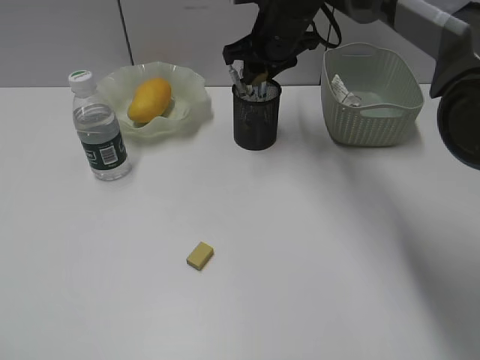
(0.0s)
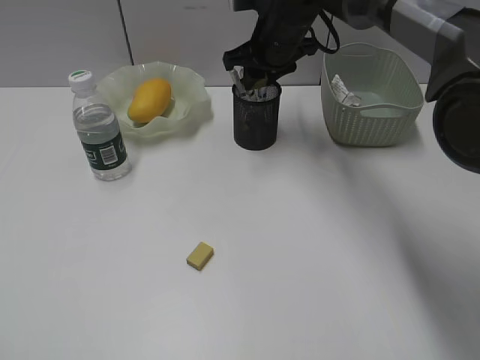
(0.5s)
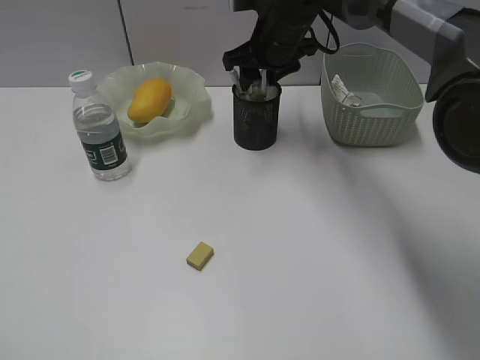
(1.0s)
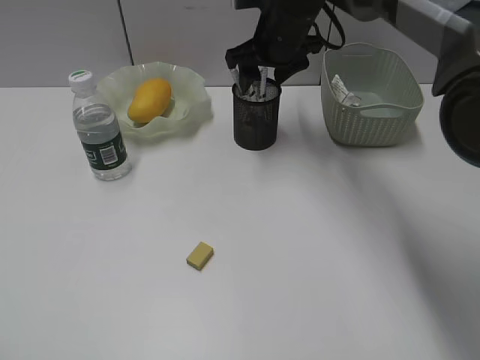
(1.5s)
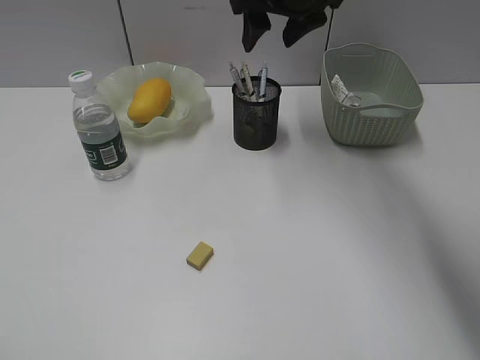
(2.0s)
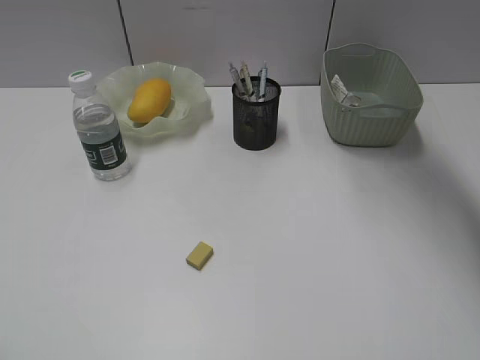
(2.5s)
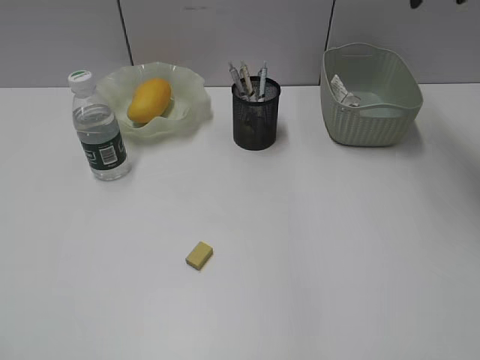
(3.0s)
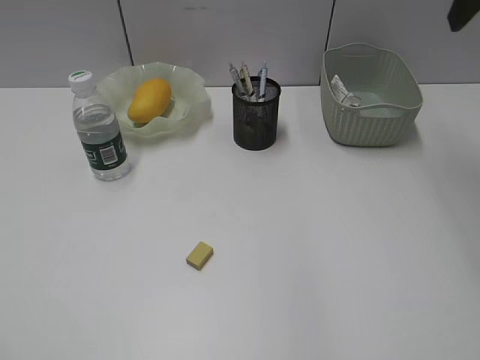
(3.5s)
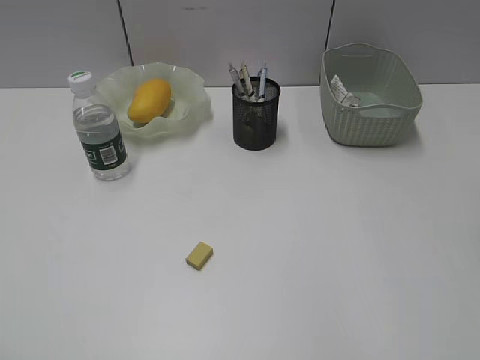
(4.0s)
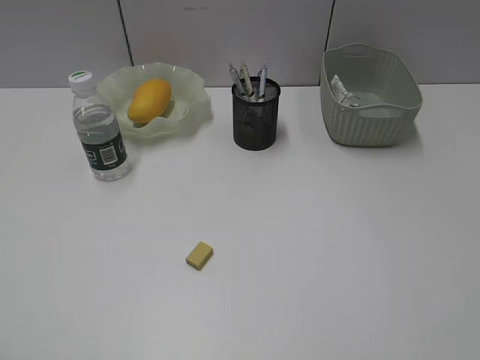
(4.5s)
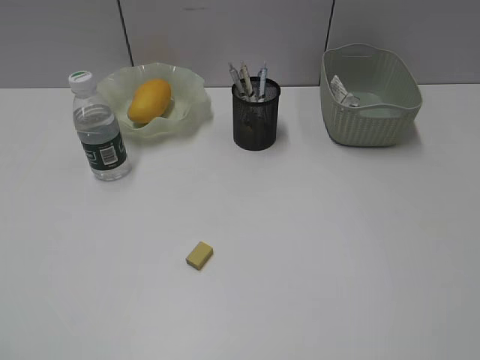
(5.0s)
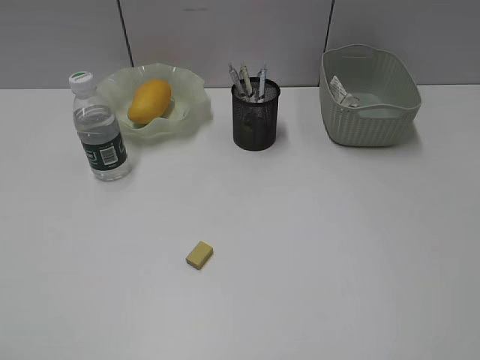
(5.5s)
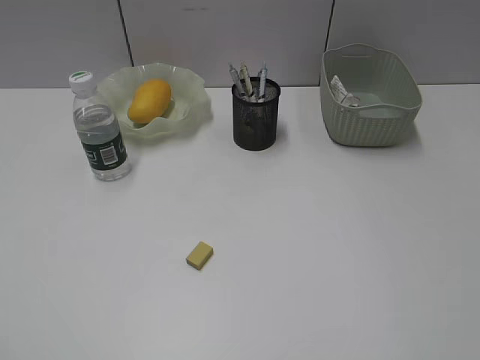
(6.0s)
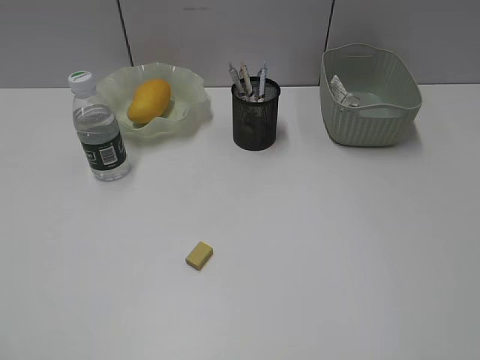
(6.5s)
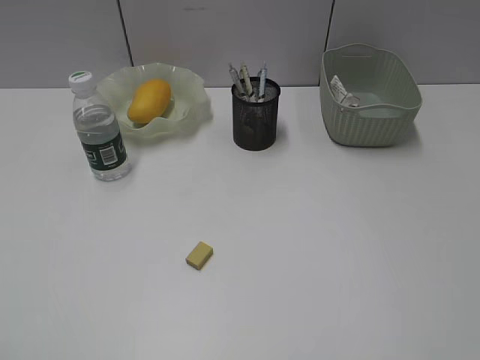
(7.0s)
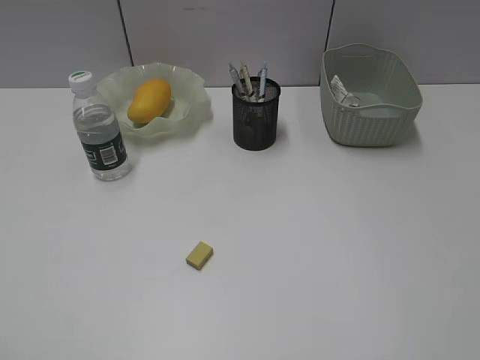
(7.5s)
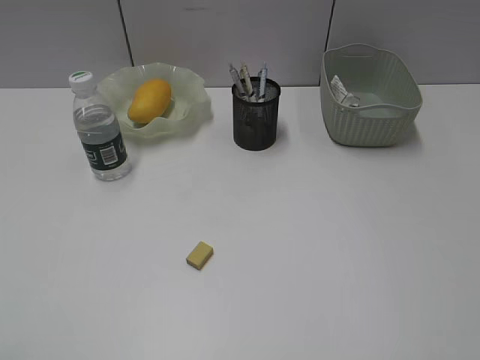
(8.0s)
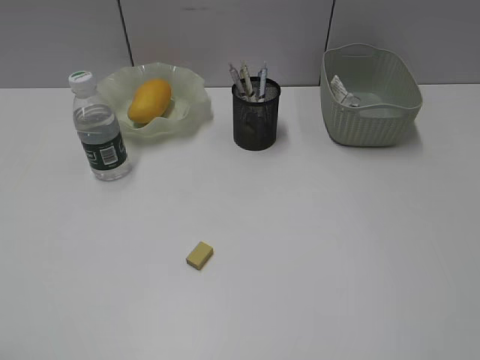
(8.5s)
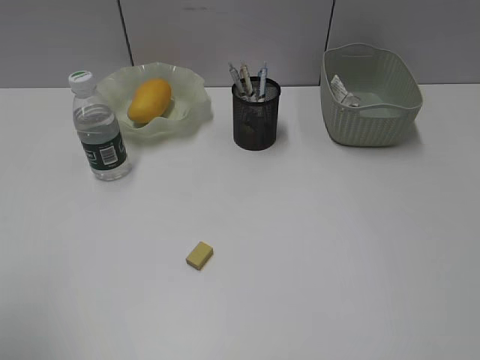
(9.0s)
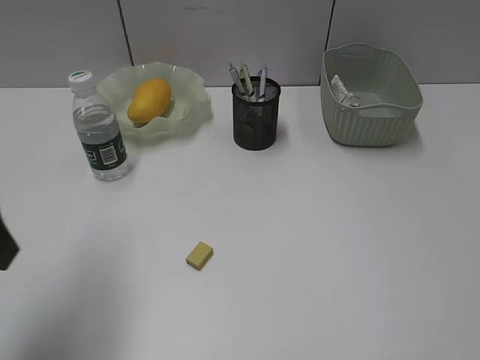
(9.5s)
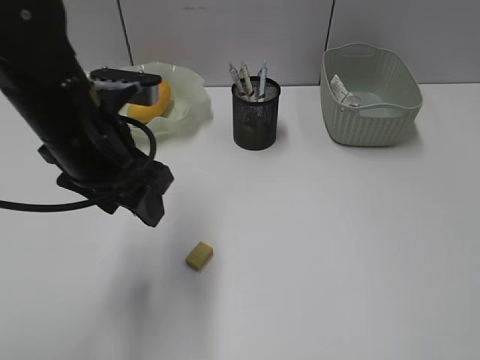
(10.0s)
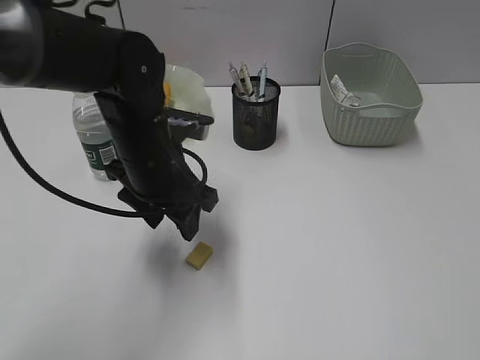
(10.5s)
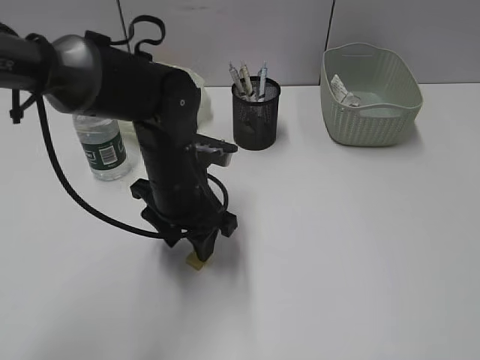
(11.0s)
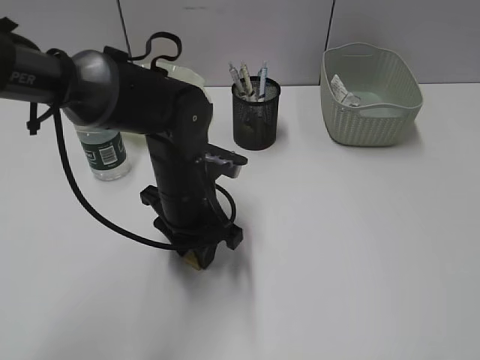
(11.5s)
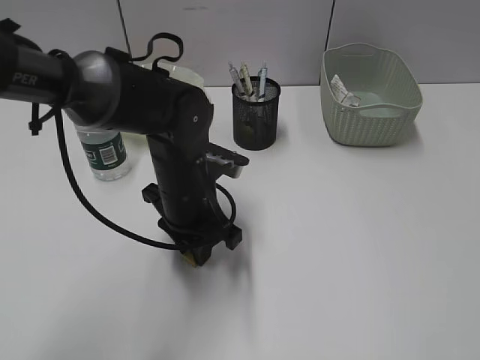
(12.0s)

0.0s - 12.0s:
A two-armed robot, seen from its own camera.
0.0s - 2.0s: The right gripper travels upward by about 10 cm, and opens.
2.0s - 4.0s: The right gripper travels backward and to the right by some 30 cm.
8.0s - 10.0s: The left gripper goes about 30 cm forward and to the right.
10.0s - 12.0s: The left gripper is displaced downward and to the right by some 15 cm, and closes.

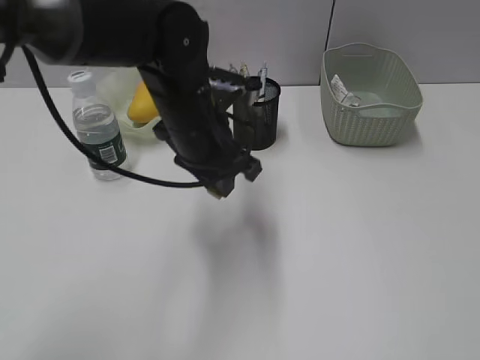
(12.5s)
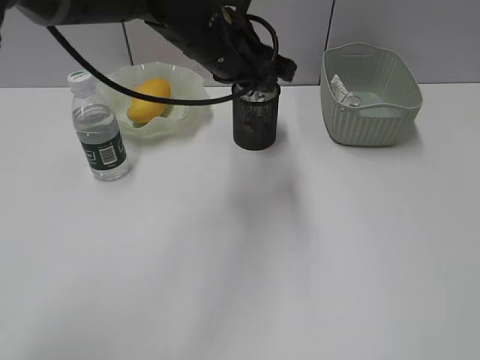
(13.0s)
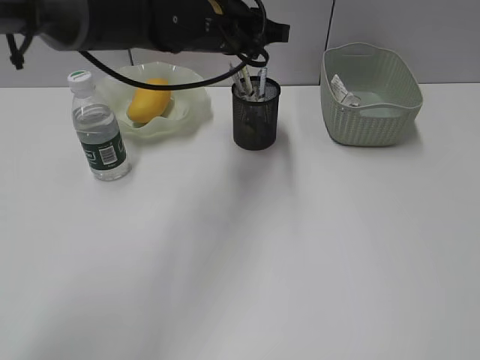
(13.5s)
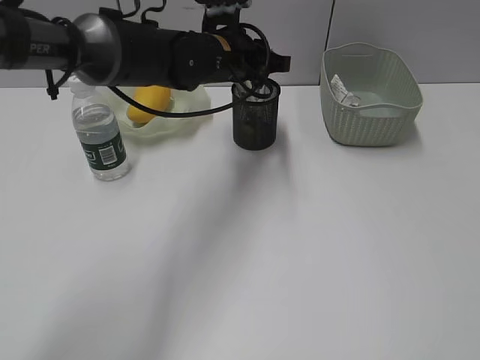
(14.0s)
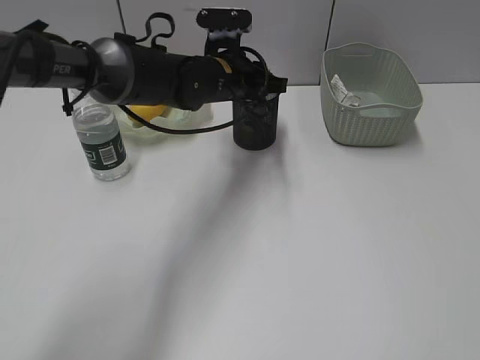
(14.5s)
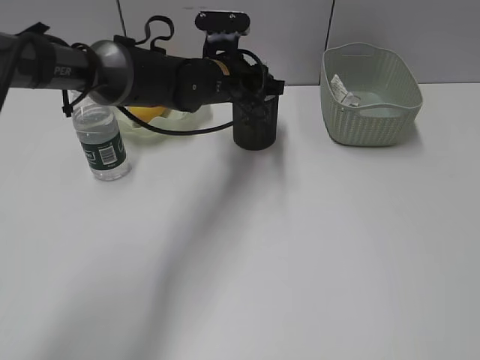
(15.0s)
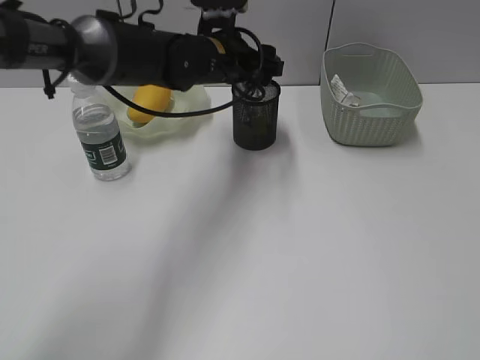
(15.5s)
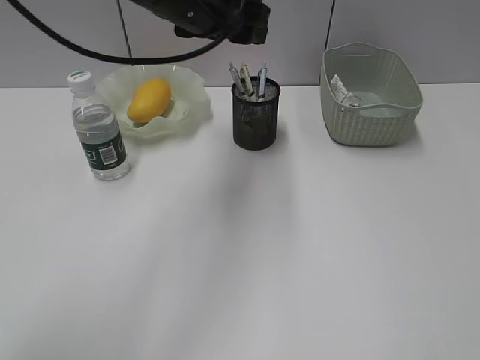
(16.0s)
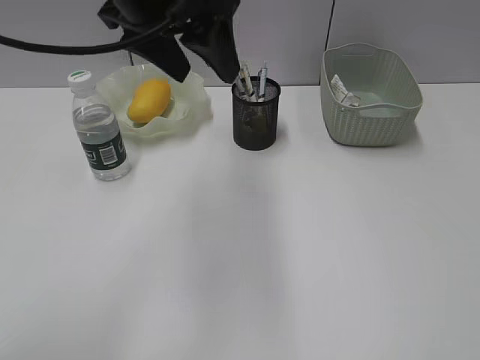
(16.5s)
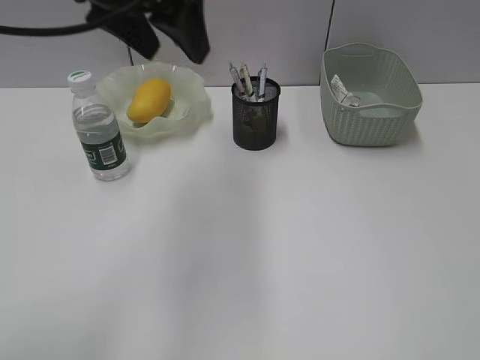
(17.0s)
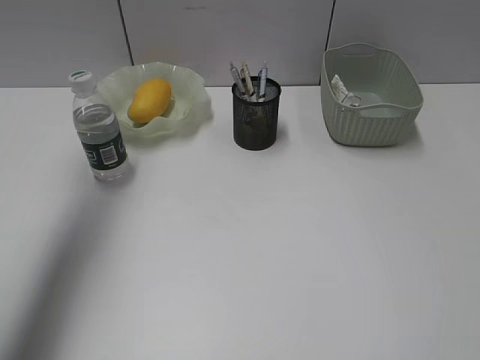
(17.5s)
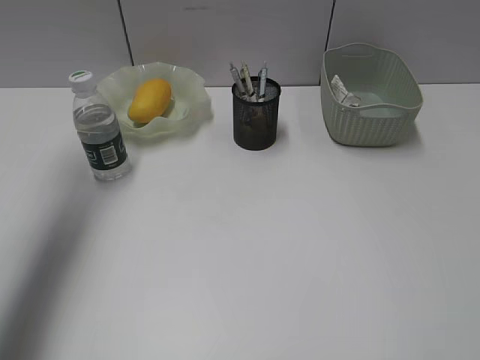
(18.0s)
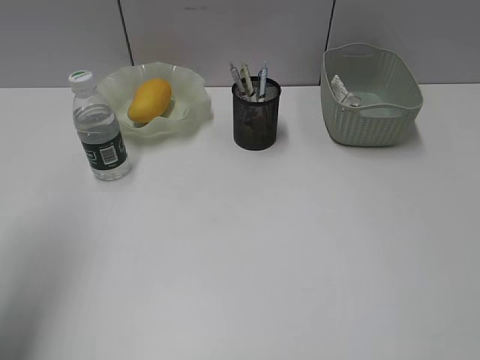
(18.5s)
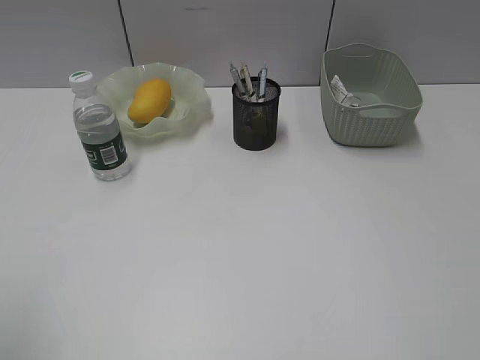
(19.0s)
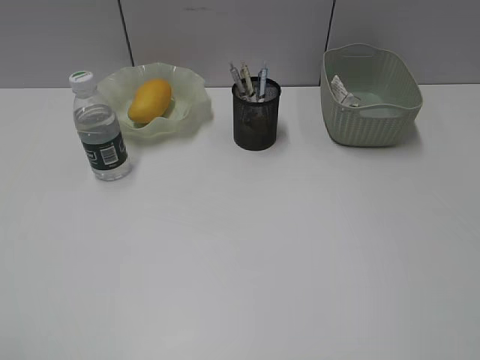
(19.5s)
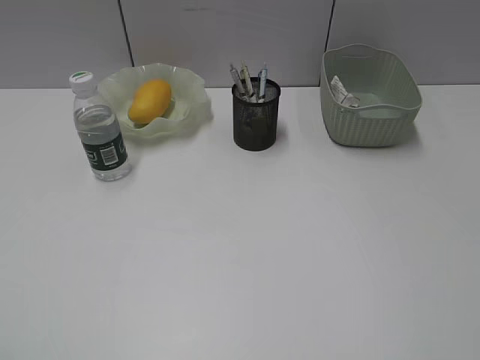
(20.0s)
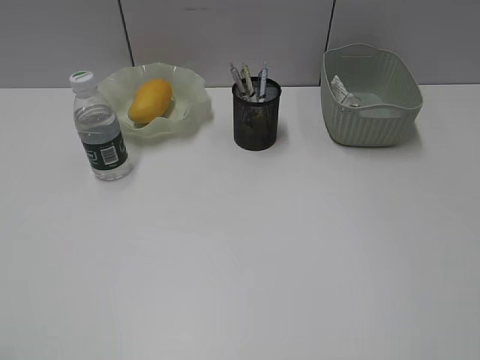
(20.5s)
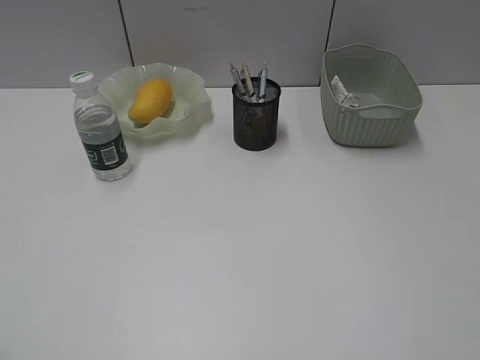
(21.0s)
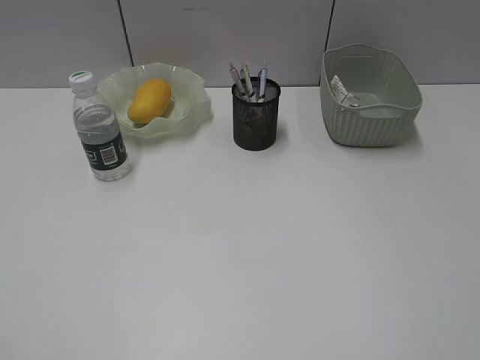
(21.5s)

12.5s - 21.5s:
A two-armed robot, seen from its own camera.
Step, 12.5s - 15.0s: Place the eraser in pen holder with left gripper.
12.5s - 14.5s: The left gripper moves forward, about 10 cm.
14.5s - 17.0s: The left gripper goes about 25 cm upward, backward and to the left, and opens up.
17.0s - 19.5s: The left gripper shifts approximately 35 cm backward and to the left.

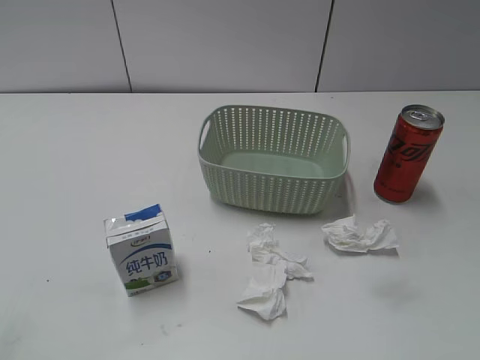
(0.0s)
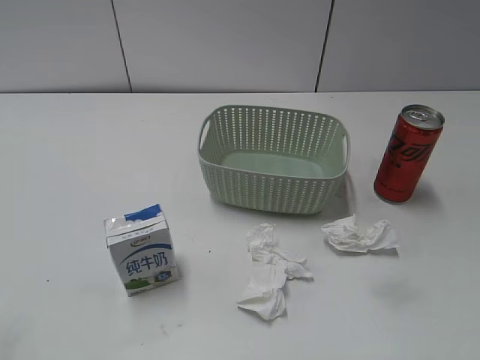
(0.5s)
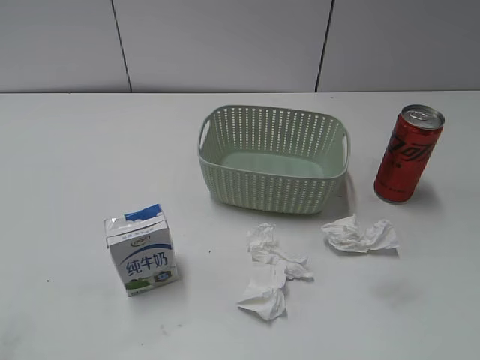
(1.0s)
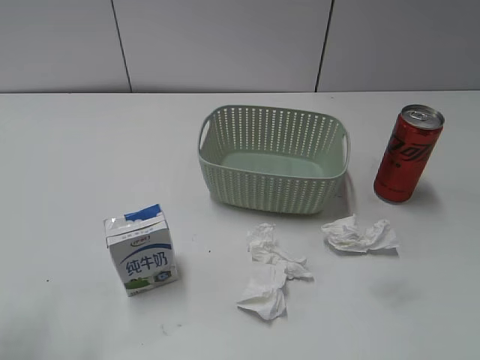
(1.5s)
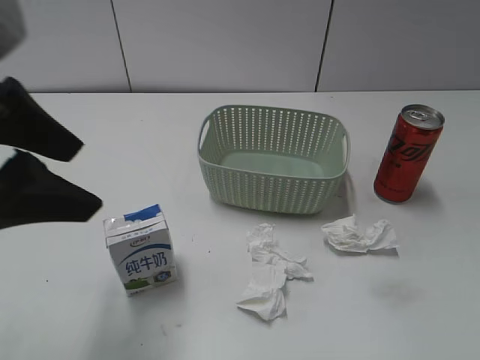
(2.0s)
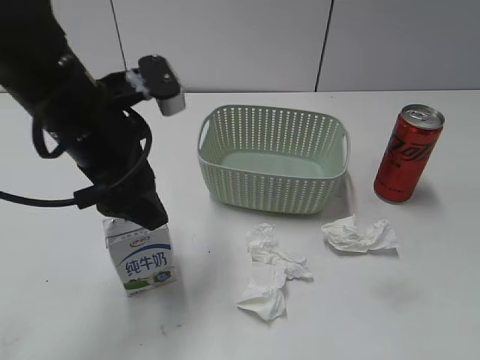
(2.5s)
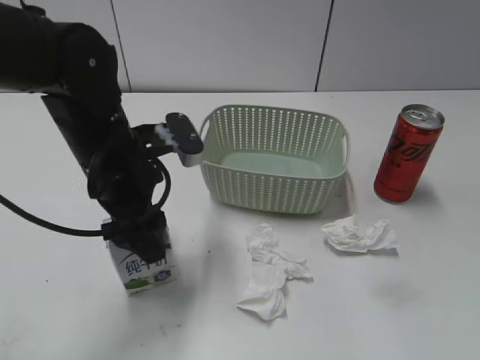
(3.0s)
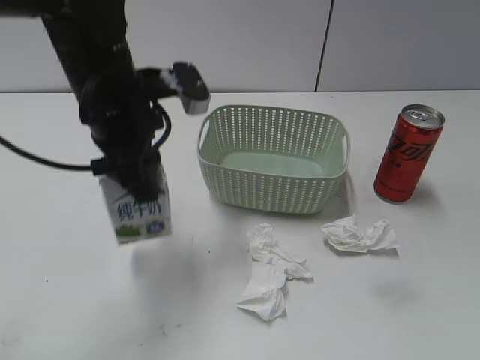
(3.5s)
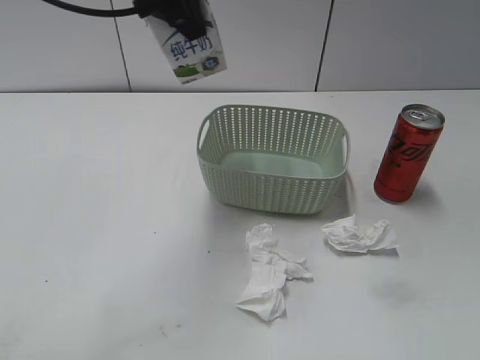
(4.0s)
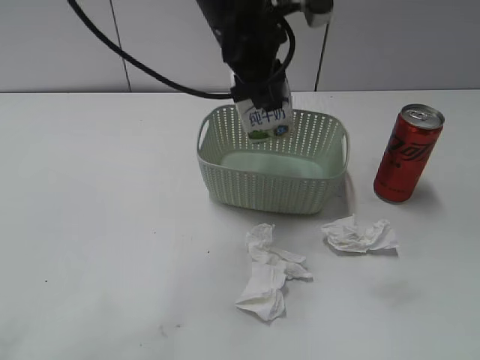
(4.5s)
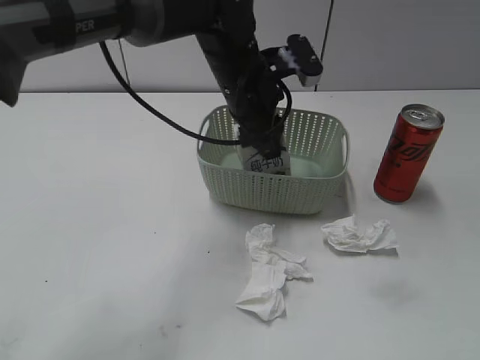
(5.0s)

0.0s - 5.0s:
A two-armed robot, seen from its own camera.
Step, 2.0s - 3.0s: Grasp the milk with left gripper.
2.5s - 5.0s: The left gripper goes up and down, roughly 20 cm each way, reversing 2 times, and closes its fingers.
